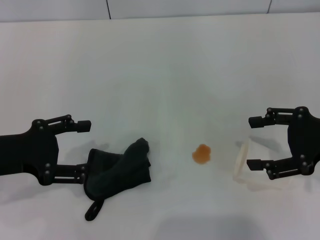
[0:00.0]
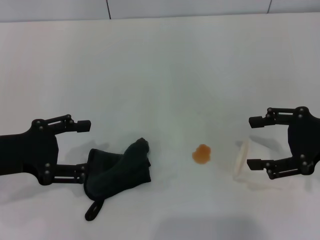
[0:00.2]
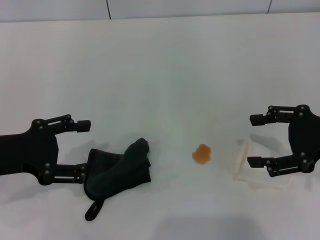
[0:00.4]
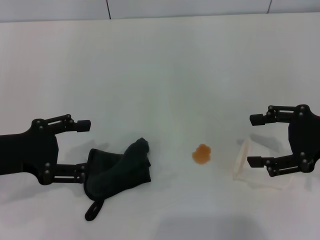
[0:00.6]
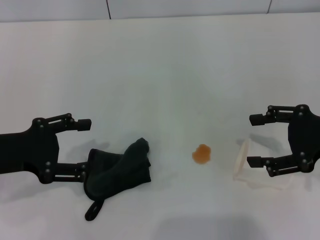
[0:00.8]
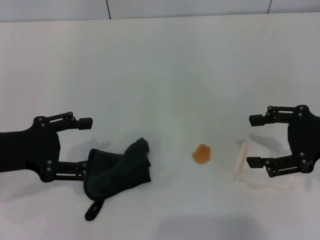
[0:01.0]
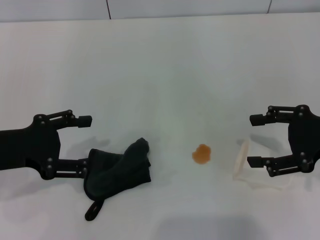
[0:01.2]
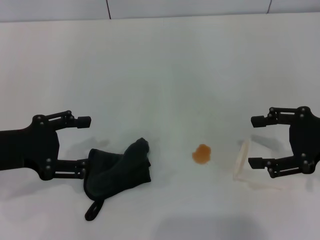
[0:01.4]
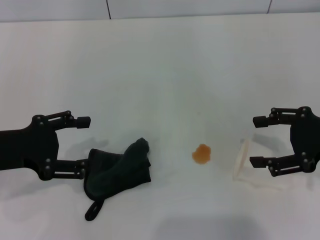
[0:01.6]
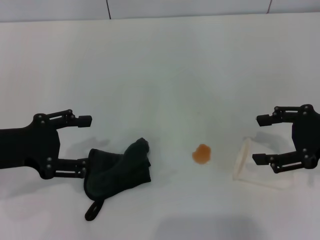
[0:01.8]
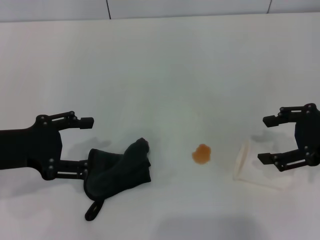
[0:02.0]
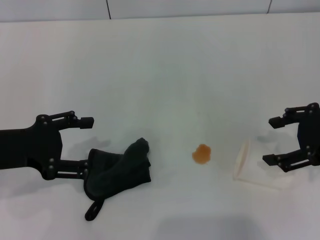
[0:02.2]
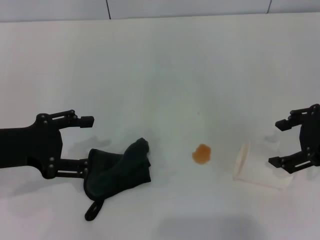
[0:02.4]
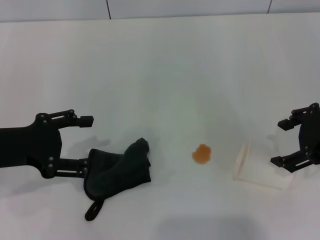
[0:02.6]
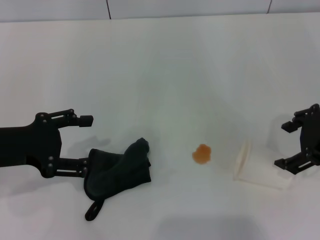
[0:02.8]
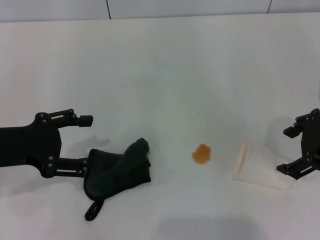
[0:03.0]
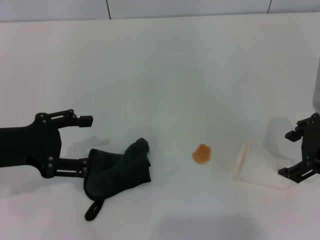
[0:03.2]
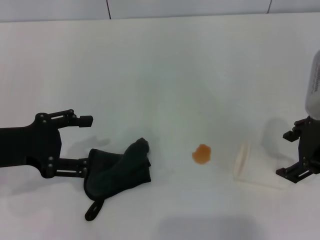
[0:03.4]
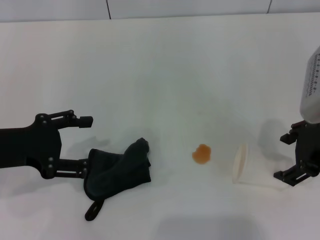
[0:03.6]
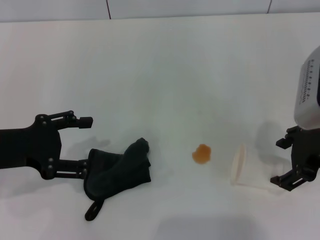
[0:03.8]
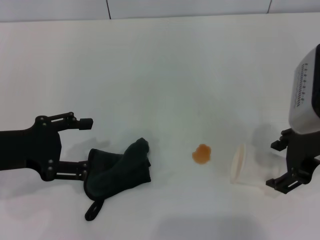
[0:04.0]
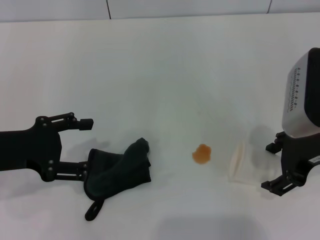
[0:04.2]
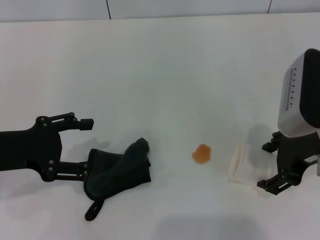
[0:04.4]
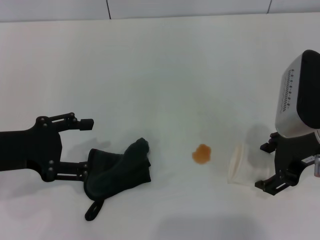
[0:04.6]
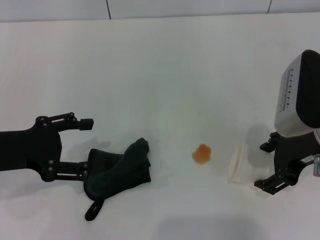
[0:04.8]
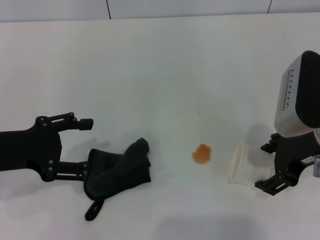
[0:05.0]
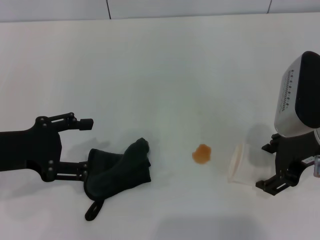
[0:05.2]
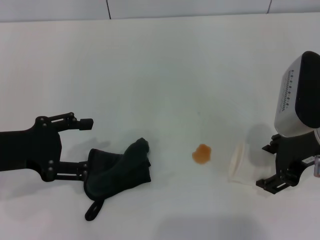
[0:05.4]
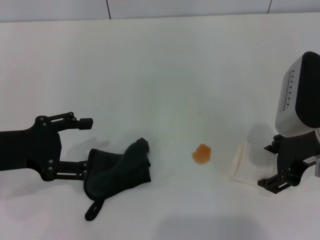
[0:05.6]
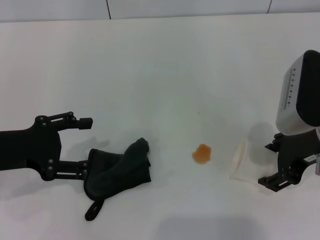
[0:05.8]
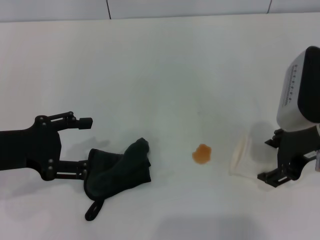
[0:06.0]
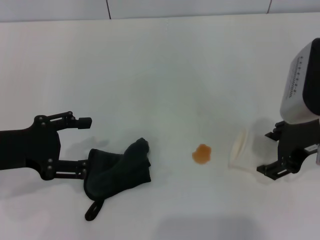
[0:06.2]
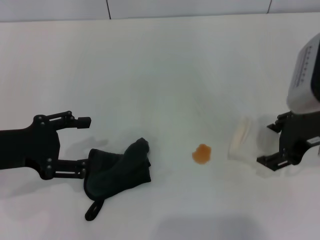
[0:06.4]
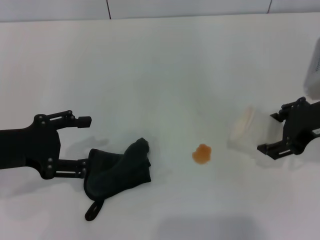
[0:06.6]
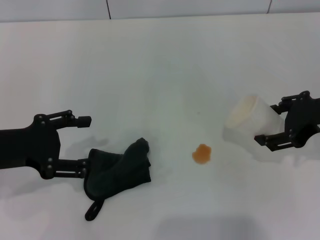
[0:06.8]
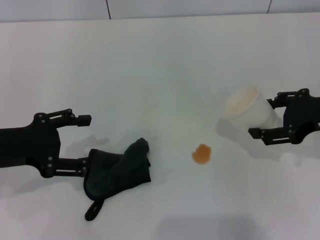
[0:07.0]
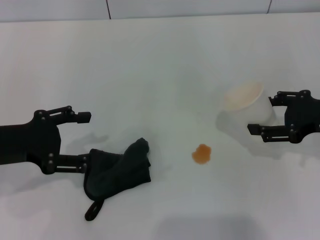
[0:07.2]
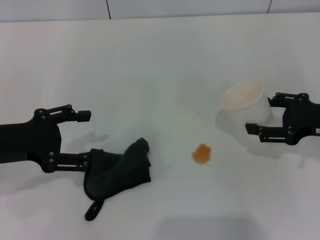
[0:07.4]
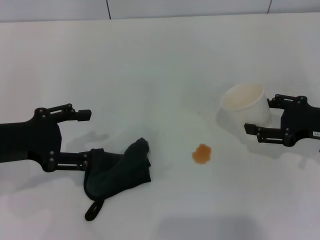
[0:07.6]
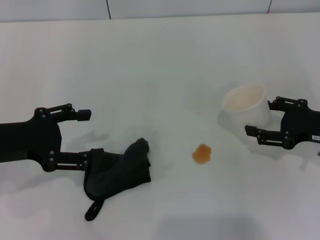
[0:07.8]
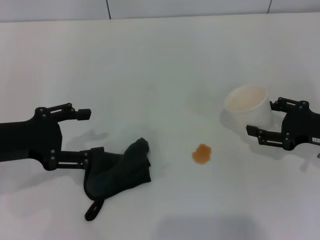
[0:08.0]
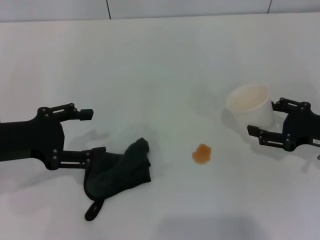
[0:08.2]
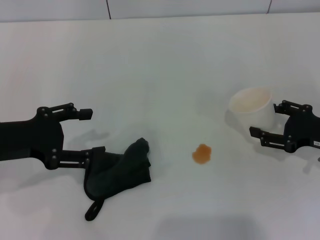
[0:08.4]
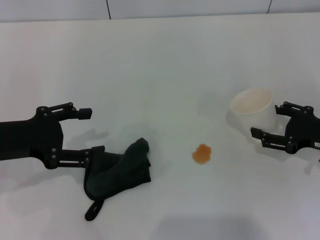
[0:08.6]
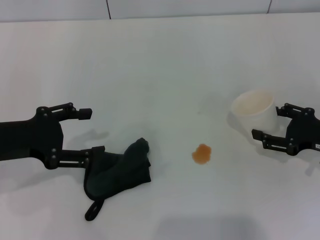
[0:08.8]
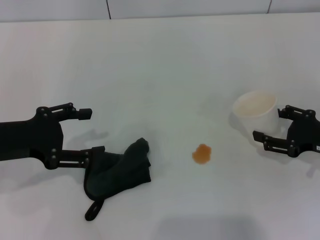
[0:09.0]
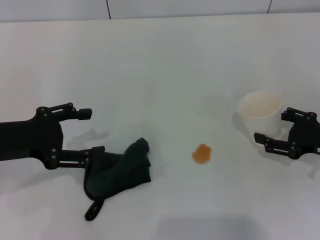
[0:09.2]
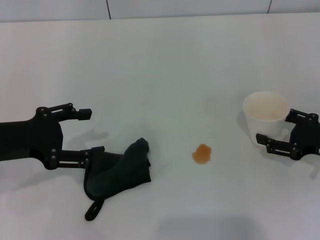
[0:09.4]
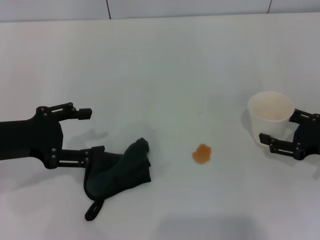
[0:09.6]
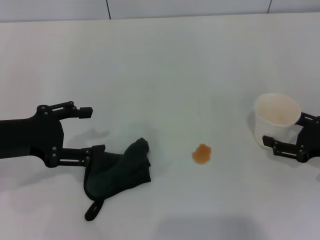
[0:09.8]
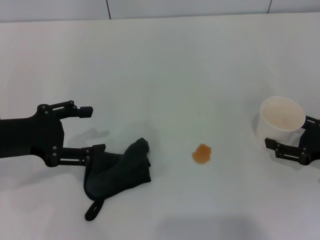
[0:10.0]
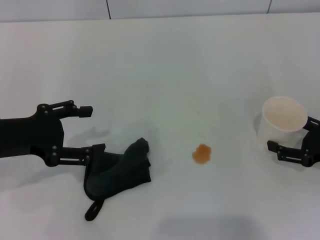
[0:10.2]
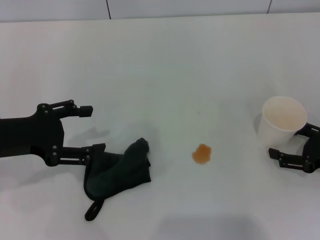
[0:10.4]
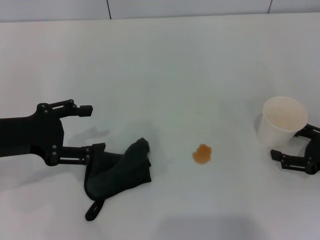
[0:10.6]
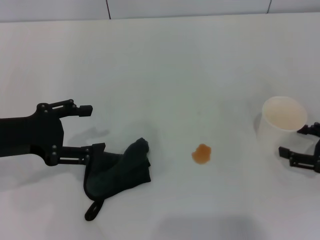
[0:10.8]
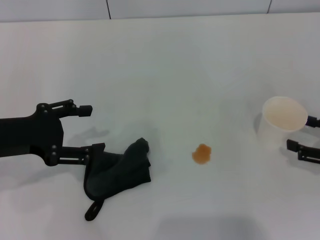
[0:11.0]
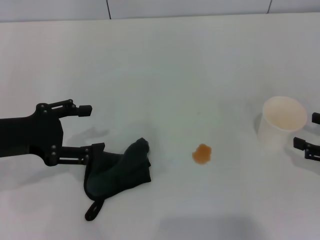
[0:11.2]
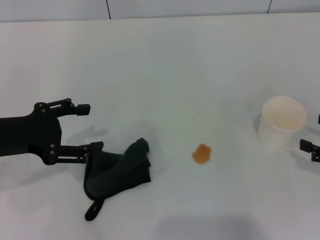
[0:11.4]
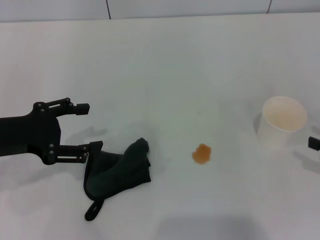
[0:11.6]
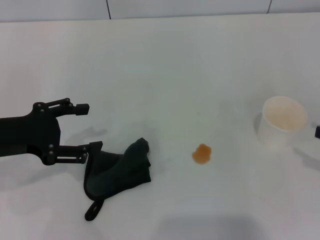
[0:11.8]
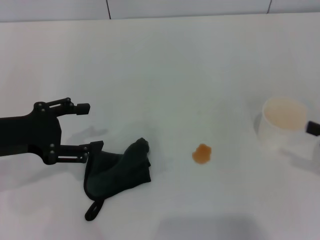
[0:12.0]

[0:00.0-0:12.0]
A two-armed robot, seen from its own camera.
Step, 0:00.0 to 0:05.4: Grasp the paper cup with the right gripper.
Step, 0:05.8 to 0:11.0: Stand the paper cup upright with the right gripper.
0:00.0 to 0:01.6: The two grippers keep their place.
0:01.6 to 0:03.0: The right gripper shifts roughly 5 cm to the left.
0:03.0 to 0:04.4: The grippers make only small movements.
0:04.4 to 0:06.0: Both grippers stay put.
0:06.0 to 0:07.6: The right gripper travels to the right and downward by some 10 cm.
0:07.6 to 0:09.0: The grippers make only small movements.
0:09.0 to 0:10.4: There are only small adjustments of the grippers.
0:10.4 to 0:12.0: The right gripper moves upward, about 10 cm.

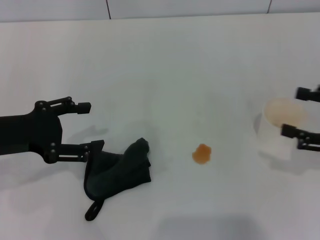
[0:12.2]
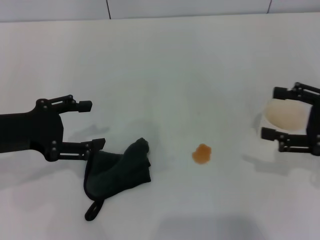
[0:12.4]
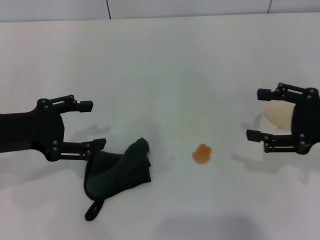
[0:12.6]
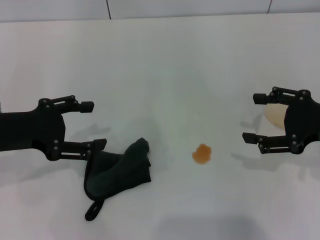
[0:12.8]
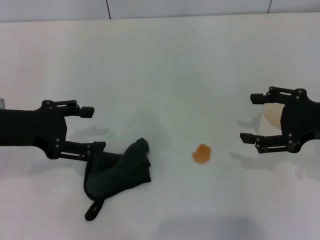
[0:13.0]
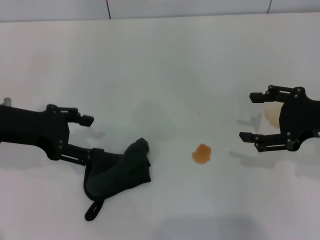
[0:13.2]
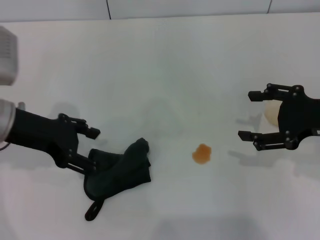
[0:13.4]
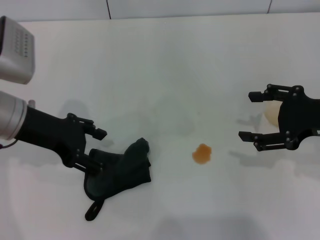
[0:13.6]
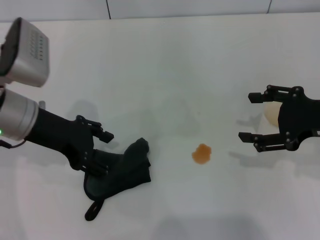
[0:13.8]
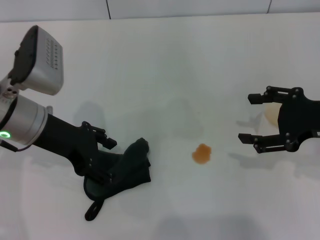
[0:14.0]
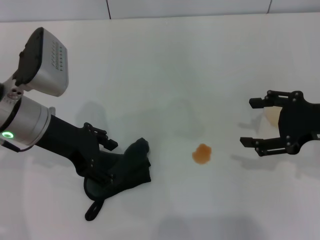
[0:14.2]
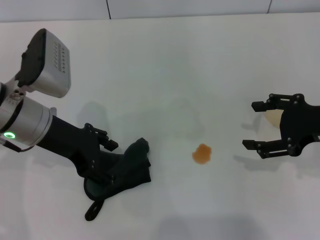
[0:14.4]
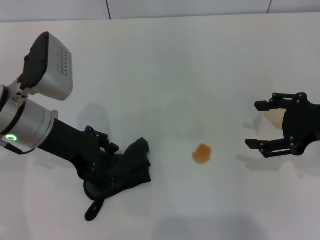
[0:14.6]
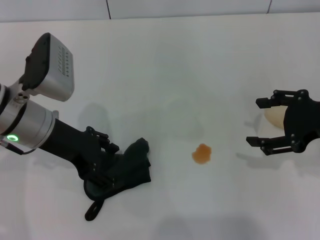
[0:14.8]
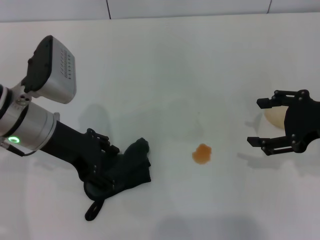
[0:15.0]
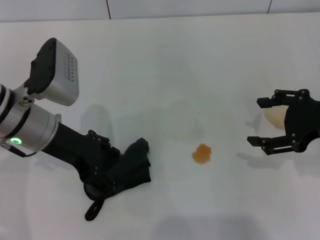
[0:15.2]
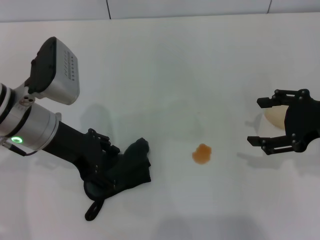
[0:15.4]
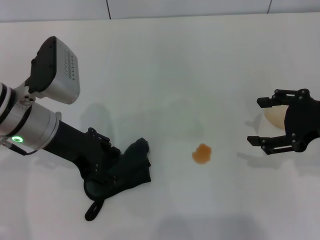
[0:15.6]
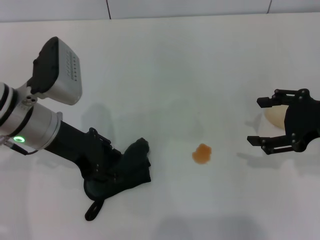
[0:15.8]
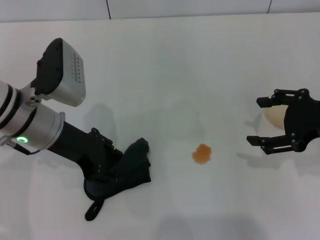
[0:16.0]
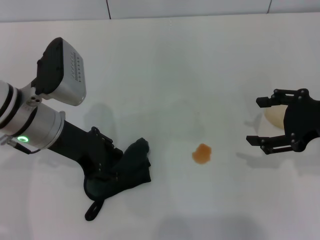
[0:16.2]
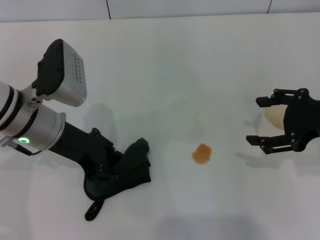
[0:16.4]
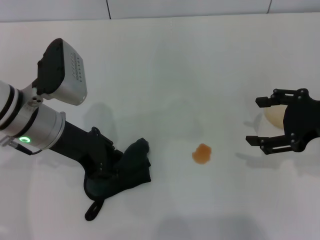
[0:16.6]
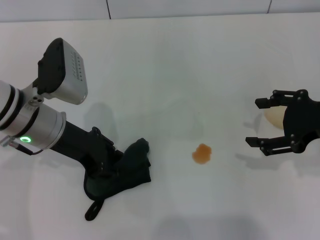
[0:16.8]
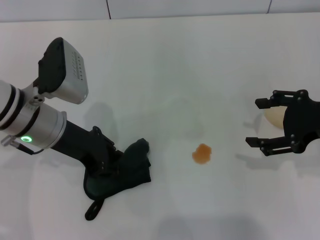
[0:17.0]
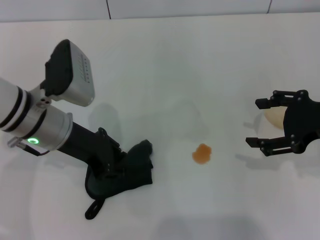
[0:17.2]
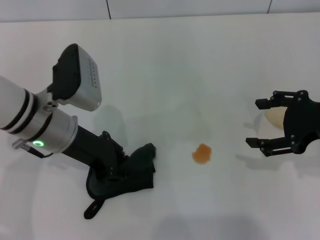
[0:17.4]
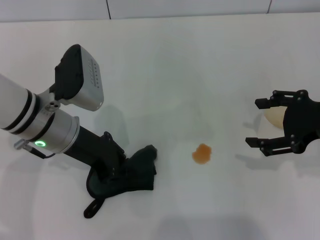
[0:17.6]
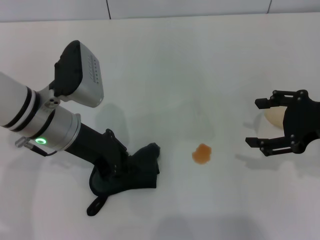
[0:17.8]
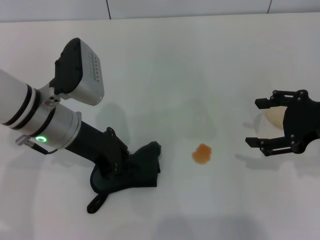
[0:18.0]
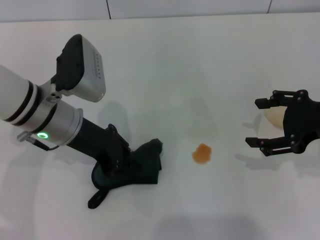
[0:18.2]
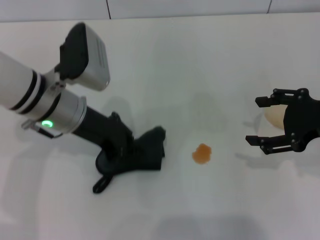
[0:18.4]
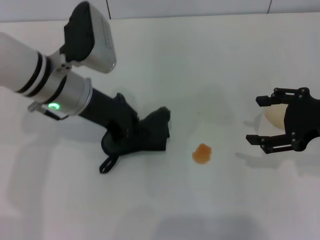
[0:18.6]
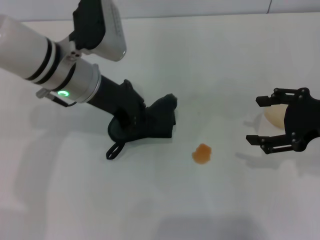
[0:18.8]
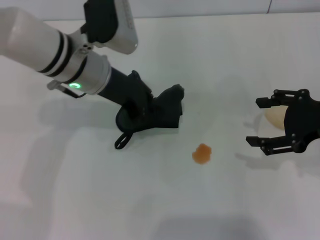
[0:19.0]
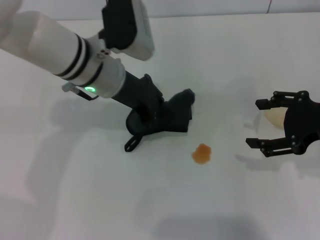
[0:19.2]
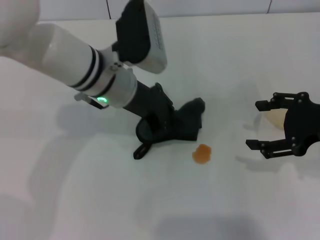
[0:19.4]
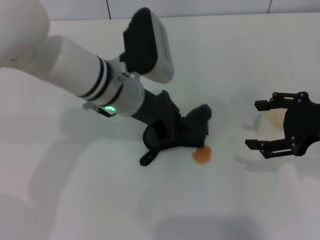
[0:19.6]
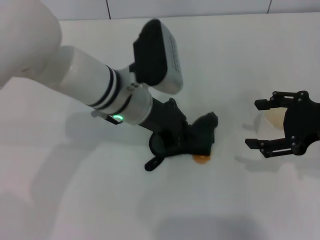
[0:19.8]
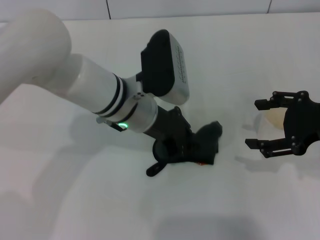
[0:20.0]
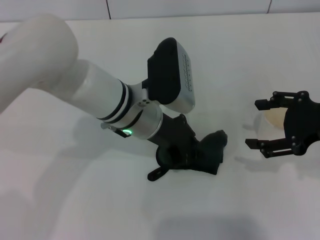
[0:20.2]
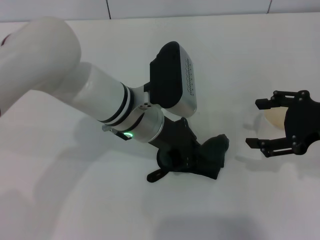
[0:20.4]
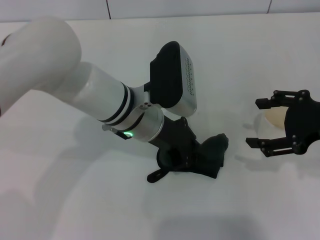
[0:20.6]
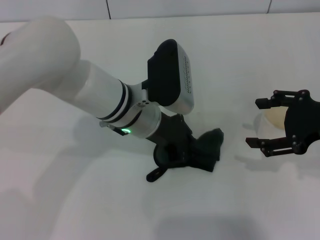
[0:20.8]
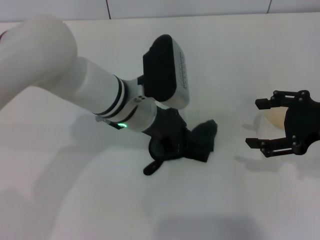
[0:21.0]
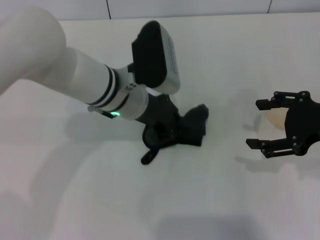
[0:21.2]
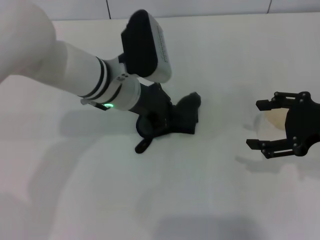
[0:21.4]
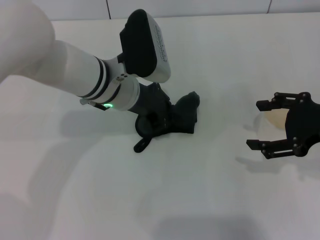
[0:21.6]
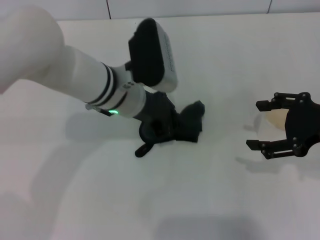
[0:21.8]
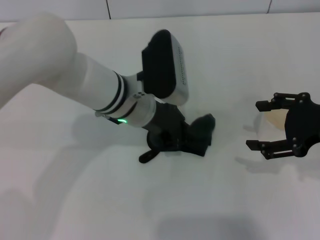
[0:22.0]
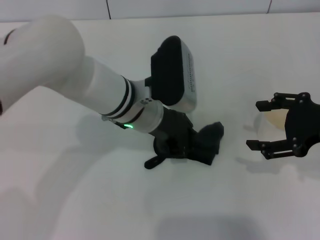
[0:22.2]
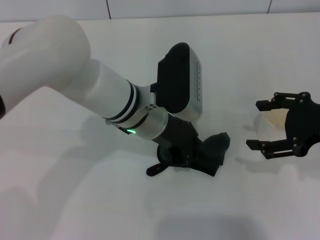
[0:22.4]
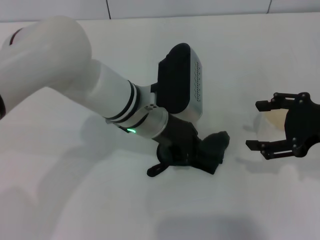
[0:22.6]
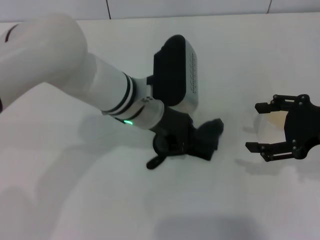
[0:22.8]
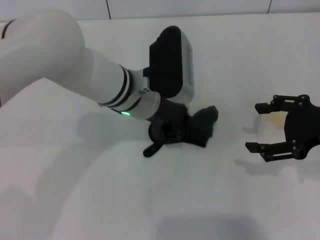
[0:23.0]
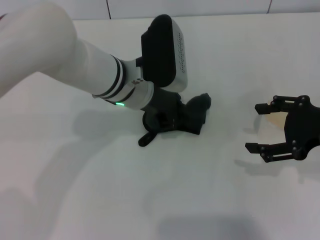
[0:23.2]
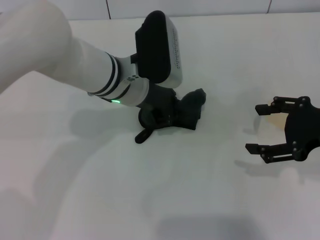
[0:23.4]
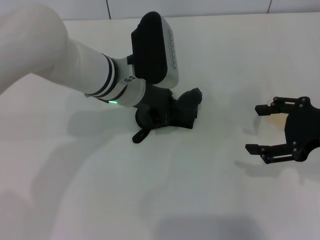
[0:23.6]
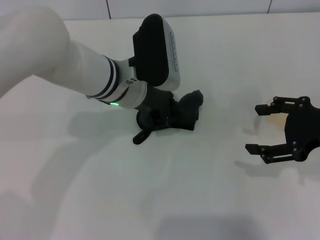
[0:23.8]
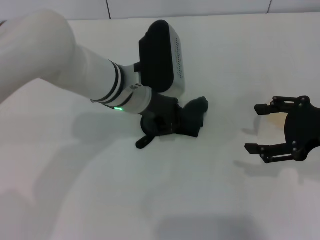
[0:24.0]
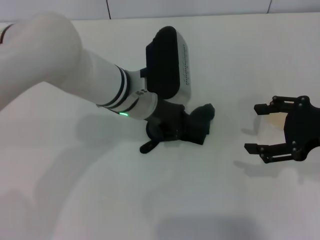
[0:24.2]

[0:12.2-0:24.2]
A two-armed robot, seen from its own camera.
Step, 0:12.2 to 0:17.8: Grasp the rag with the left gripper.
0:12.2 to 0:13.8: The left gripper moves to the right and forward, about 10 cm; the right gripper heads to the left, covering roughly 5 cm.
0:13.8 to 0:15.2: There are only small adjustments of the grippers.
0:15.2 to 0:16.6: The left gripper closes its fingers.
0:16.6 to 0:18.2: The left gripper closes.
0:18.2 to 0:19.8: The left gripper heads to the right, covering approximately 10 cm.
0:19.8 to 0:24.2: The grippers make only small movements.
